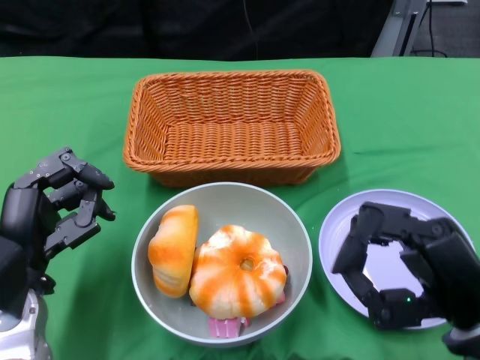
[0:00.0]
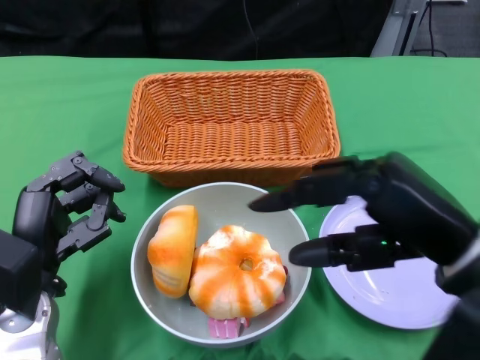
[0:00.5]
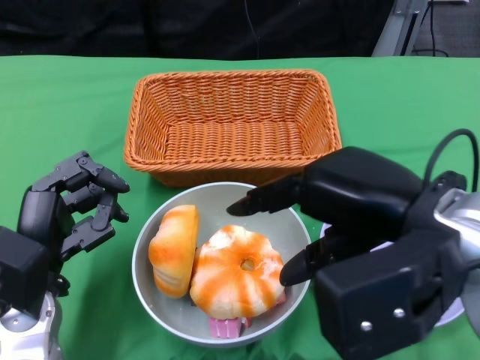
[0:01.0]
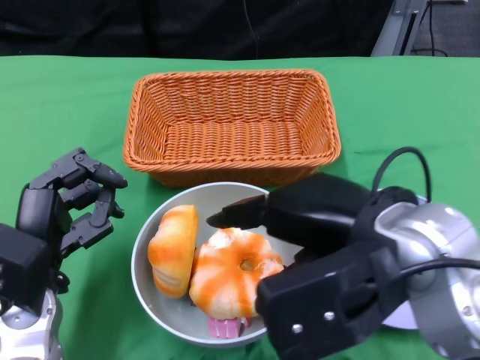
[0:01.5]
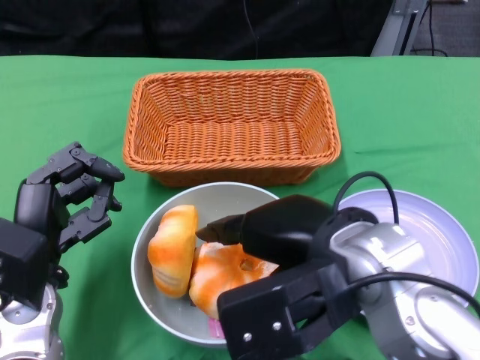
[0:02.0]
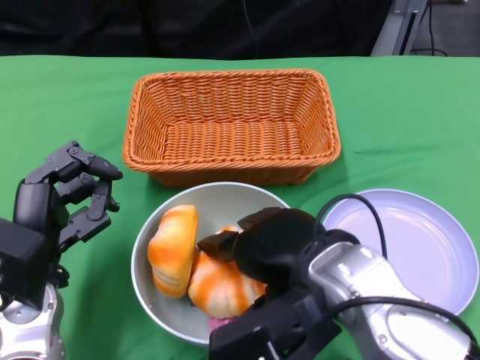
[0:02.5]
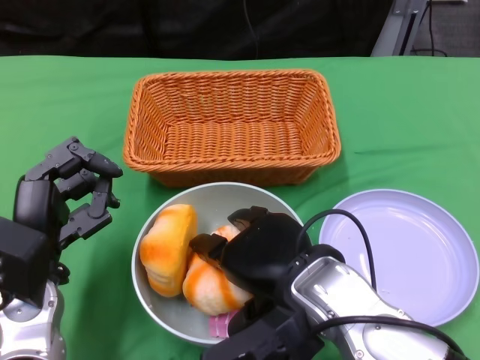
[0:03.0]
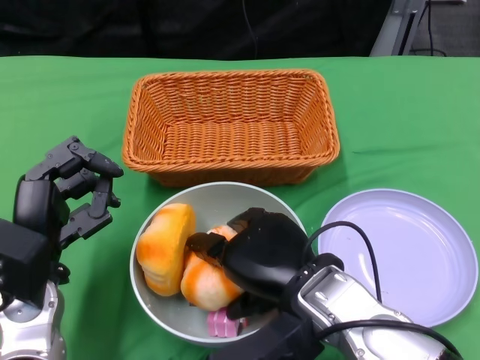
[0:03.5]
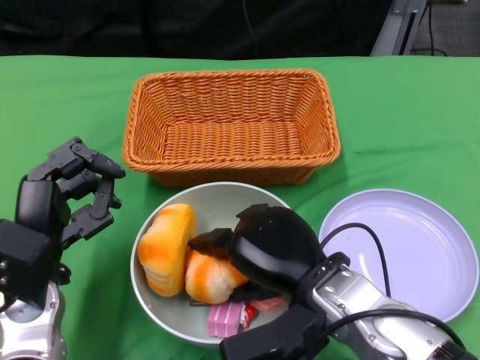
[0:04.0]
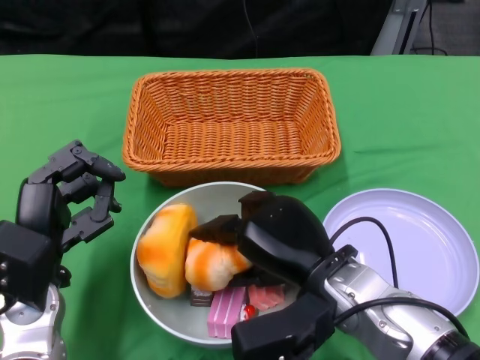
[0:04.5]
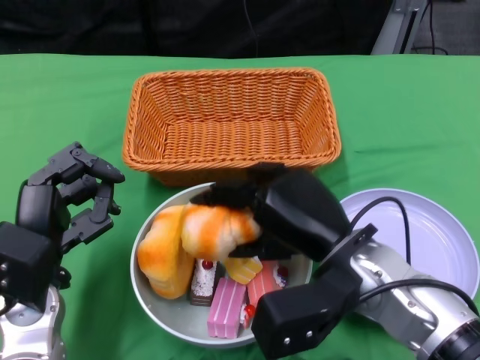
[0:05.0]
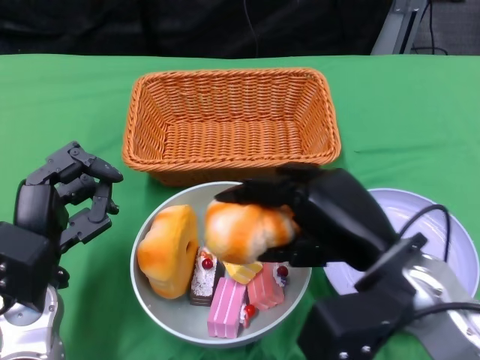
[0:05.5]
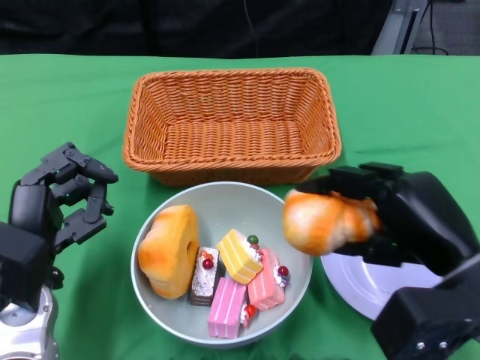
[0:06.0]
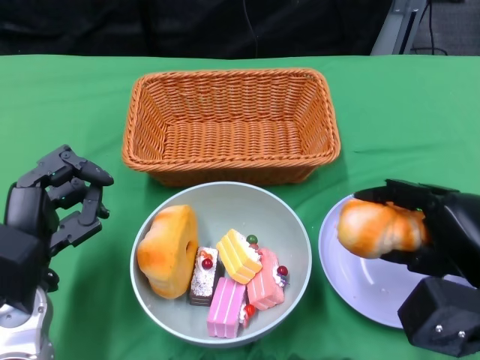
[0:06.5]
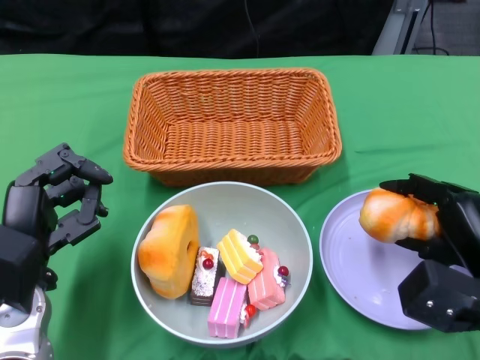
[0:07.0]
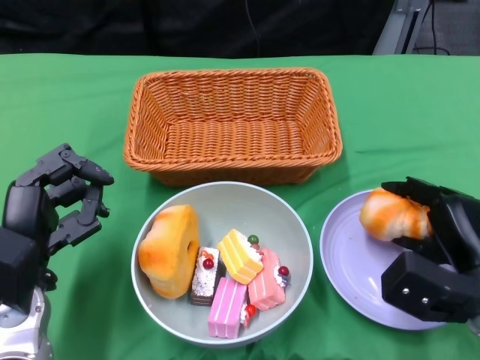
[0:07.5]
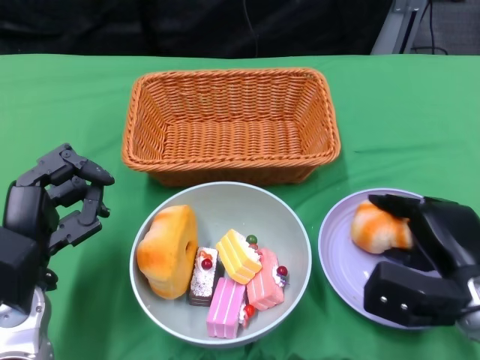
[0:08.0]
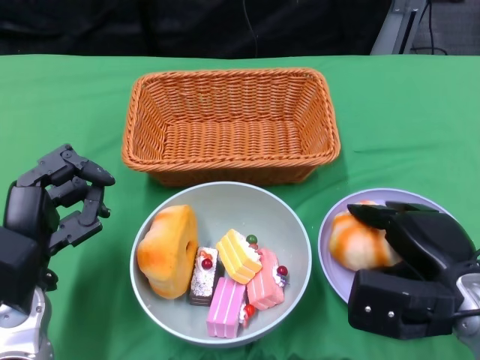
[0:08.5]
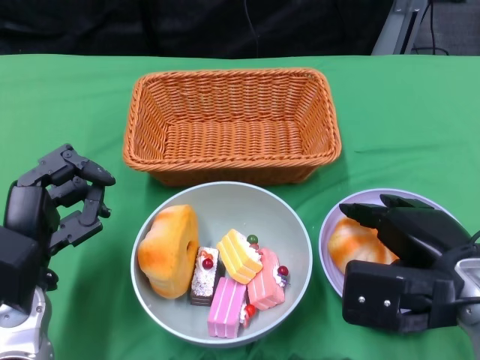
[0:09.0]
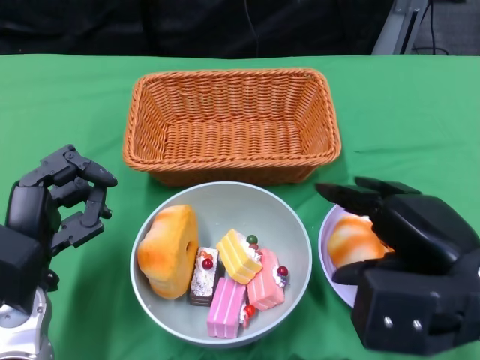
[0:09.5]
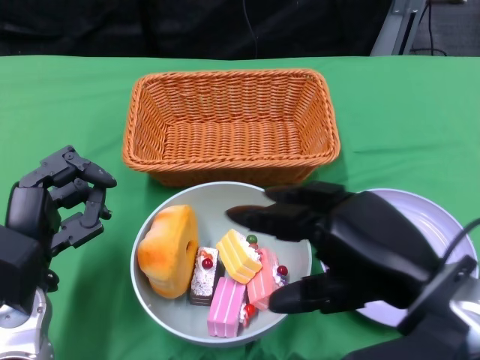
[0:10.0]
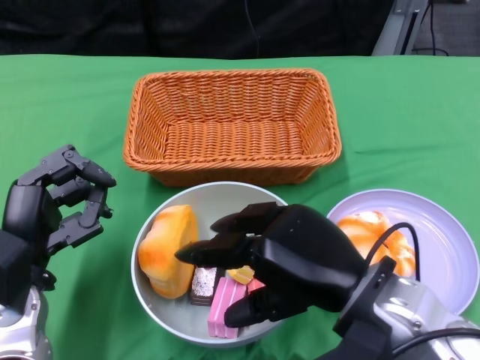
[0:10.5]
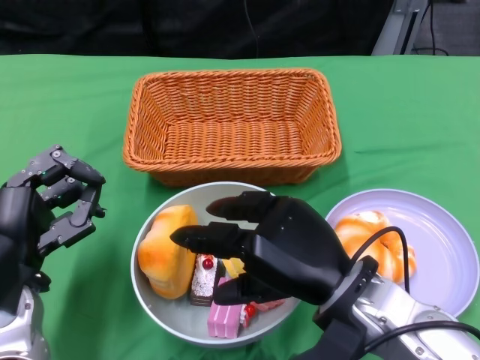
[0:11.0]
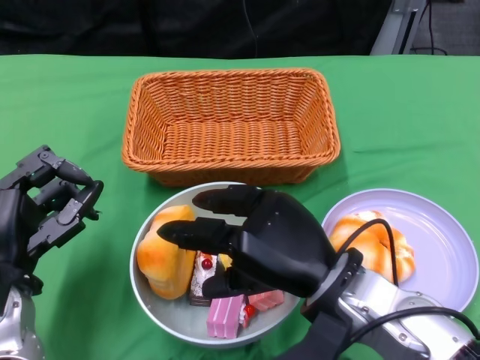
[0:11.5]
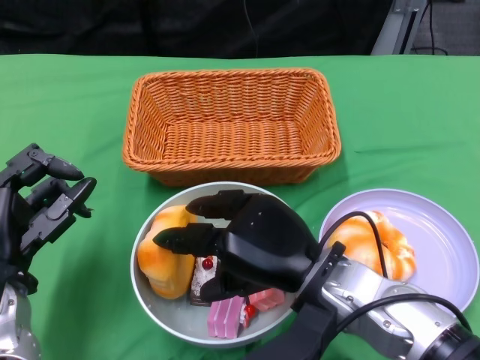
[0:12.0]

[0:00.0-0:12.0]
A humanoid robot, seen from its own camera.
0.0 to 2.0 s: The right hand is displaced to the left and upward by approximately 15 cm.
2.0 to 4.0 s: The right hand heads downward, covering roughly 10 cm.
4.0 to 6.0 s: The right hand goes about 10 cm to the right.
6.0 to 8.0 s: The right hand moves downward, roughly 10 cm.
8.0 to 10.0 s: The right hand shifts approximately 15 cm upward, backward and to the left.
10.0 to 12.0 s: The right hand goes some 10 cm to the left, downward and forward.

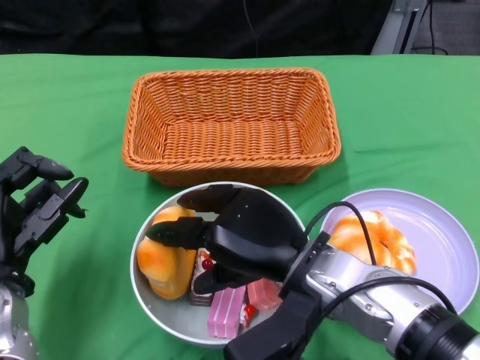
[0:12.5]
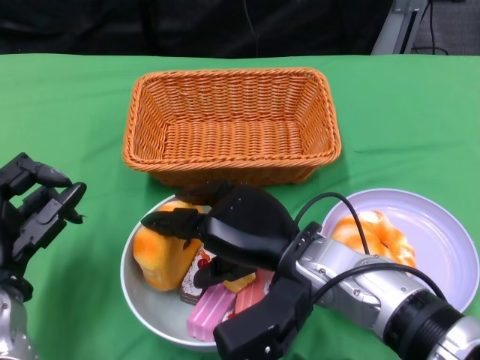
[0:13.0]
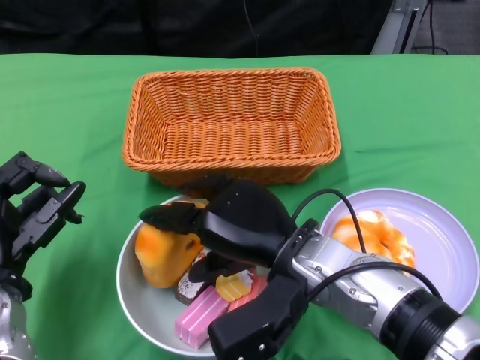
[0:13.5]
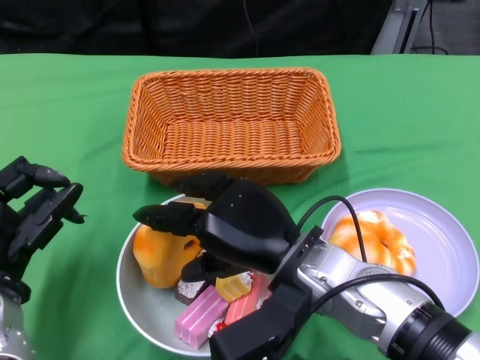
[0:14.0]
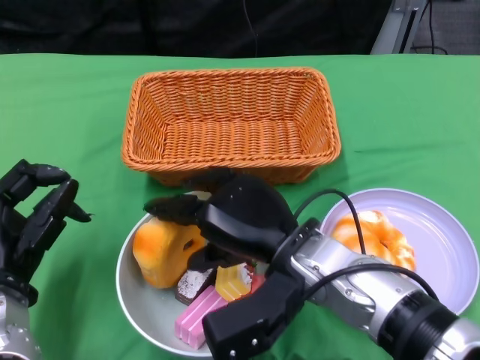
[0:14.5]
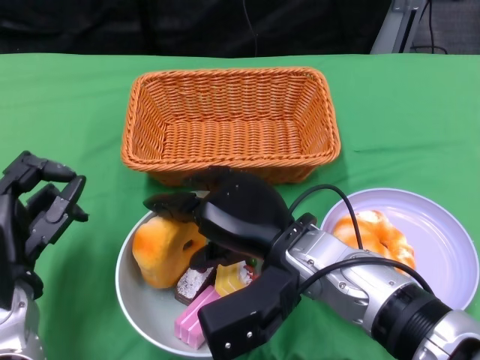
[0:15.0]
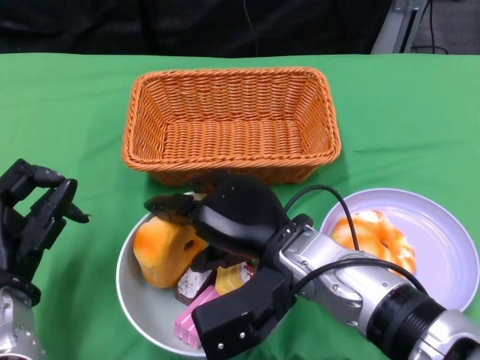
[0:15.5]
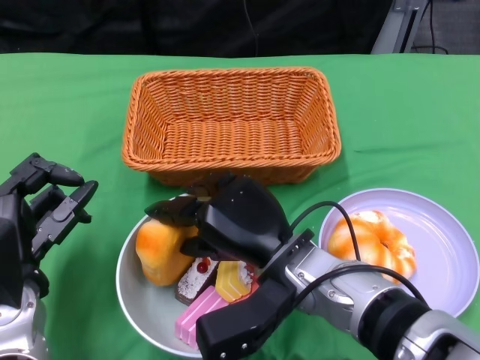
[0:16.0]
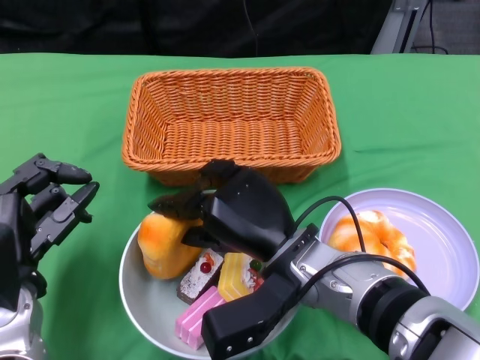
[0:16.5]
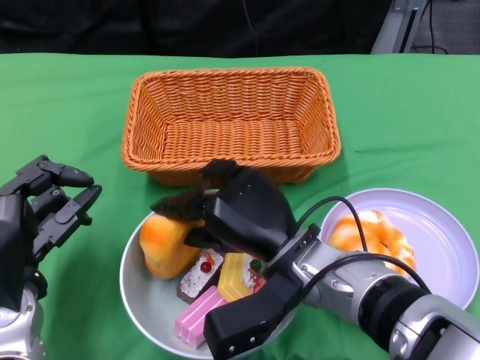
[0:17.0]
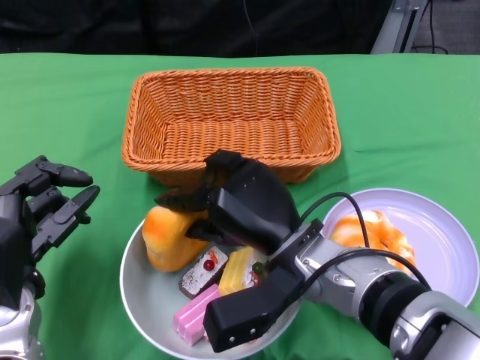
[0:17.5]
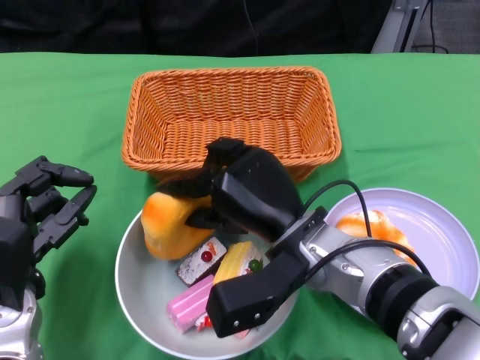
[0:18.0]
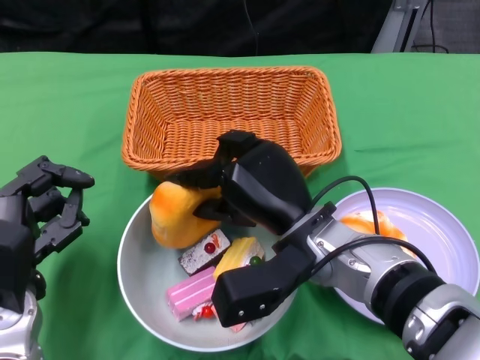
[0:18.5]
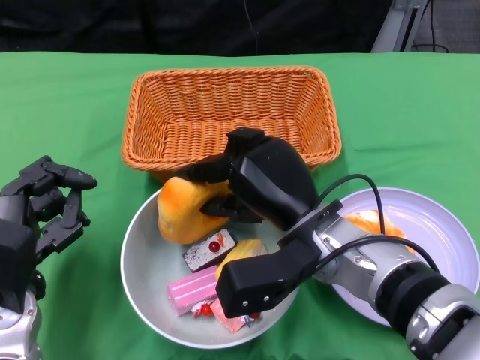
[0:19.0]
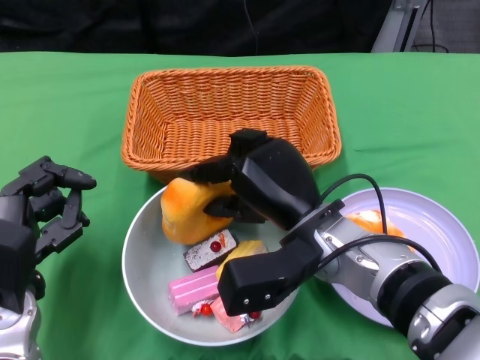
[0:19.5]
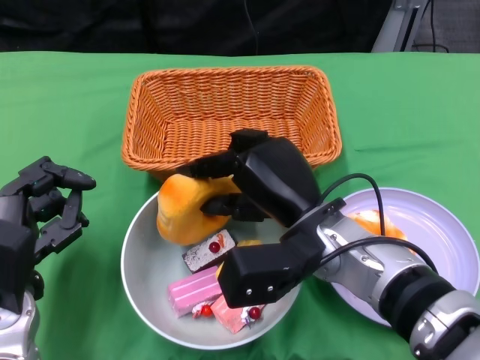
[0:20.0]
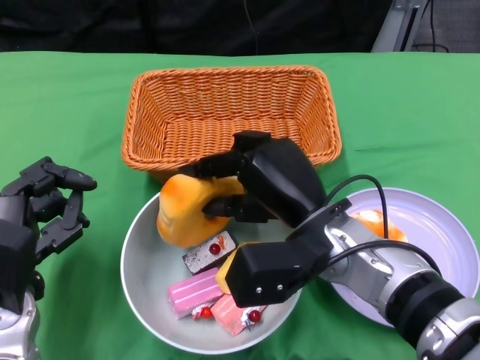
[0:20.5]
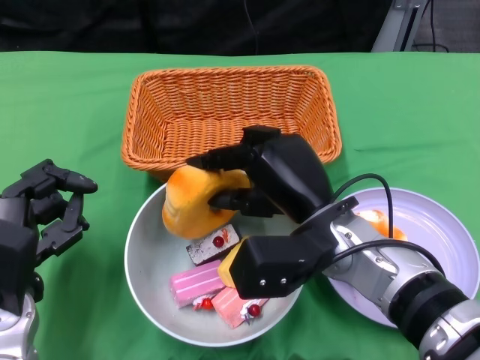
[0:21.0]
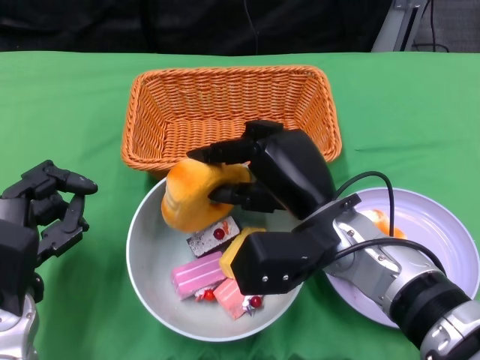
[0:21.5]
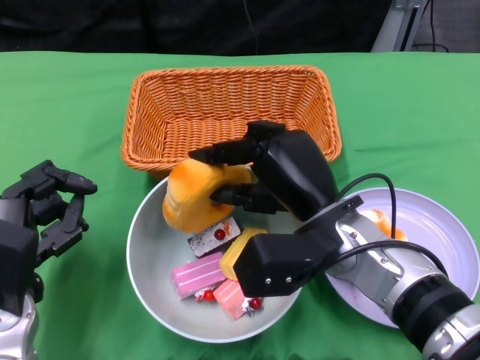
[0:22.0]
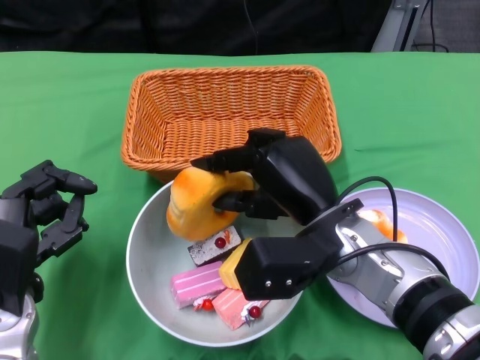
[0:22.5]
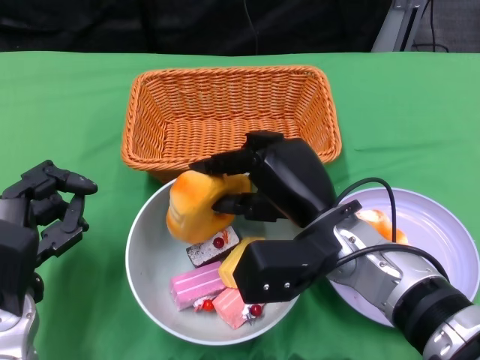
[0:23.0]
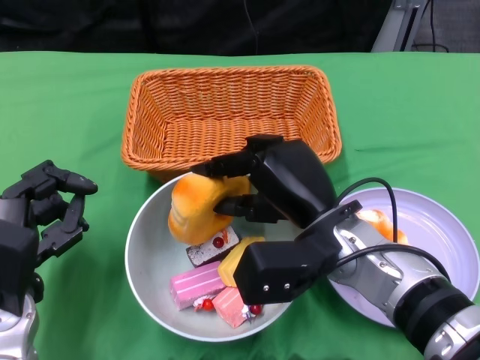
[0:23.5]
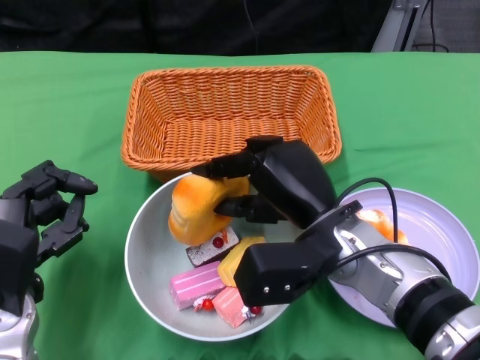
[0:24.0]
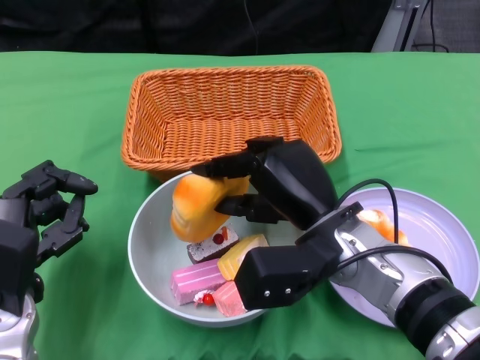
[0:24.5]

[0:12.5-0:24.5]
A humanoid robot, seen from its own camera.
18.5 to 22.5 s: The hands move only a little.
22.5 to 24.5 s: Both hands stay about where they are.

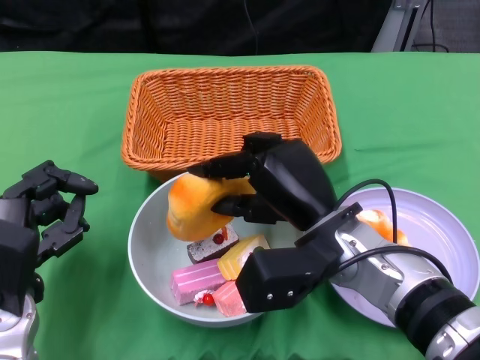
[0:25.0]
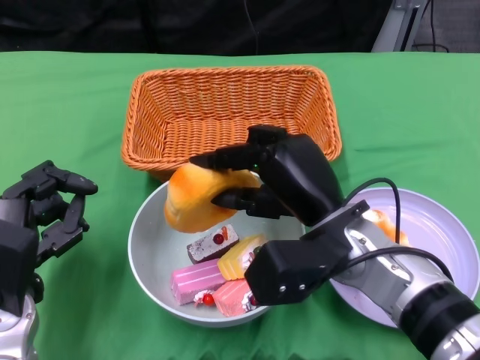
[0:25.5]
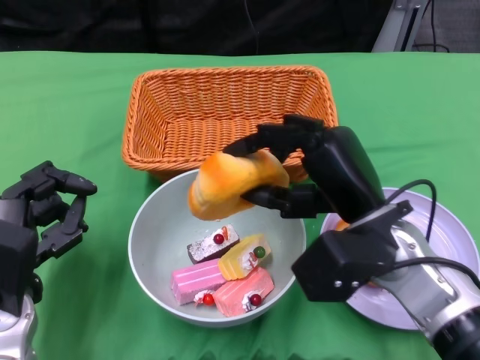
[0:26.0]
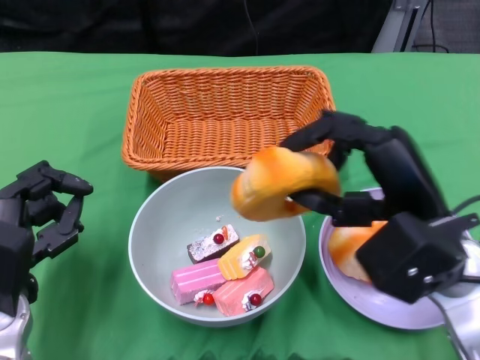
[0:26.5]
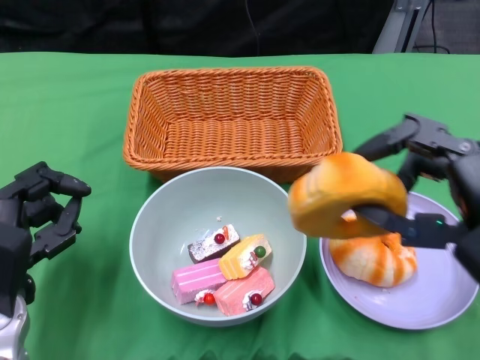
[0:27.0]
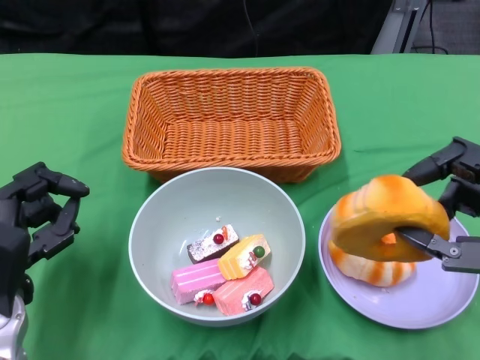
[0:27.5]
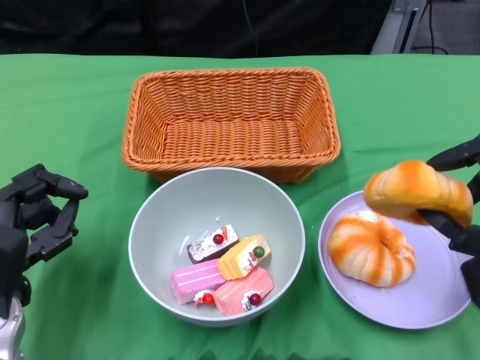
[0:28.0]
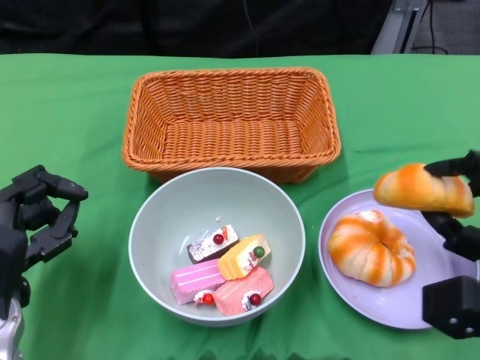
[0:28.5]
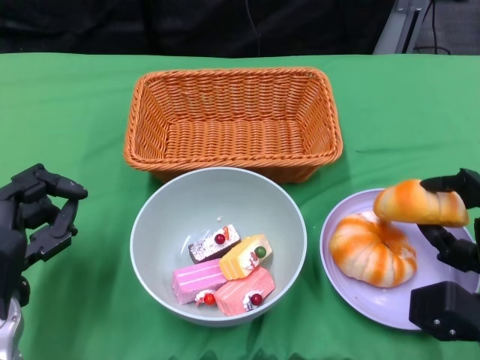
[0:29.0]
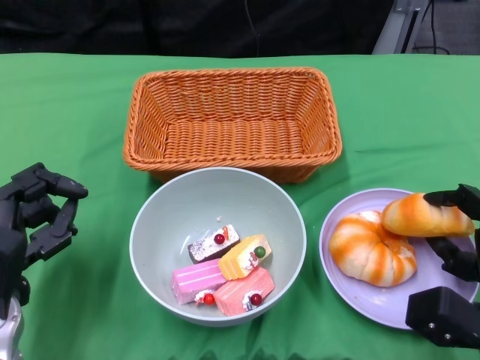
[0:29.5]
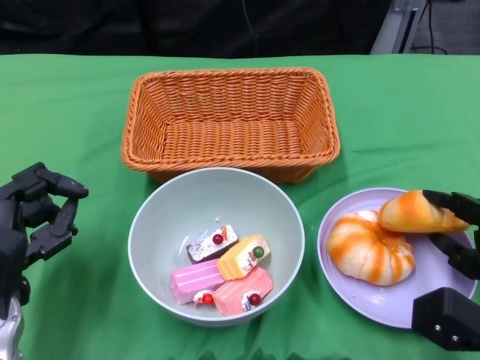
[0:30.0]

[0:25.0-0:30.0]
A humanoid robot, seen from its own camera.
25.0 to 27.5 s: The right hand is displaced to the right and backward by approximately 20 cm.
27.5 to 30.0 s: The right hand heads downward, covering approximately 15 cm.
